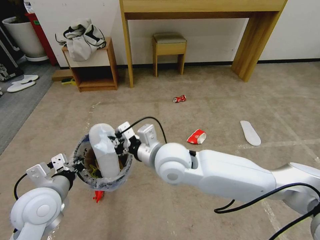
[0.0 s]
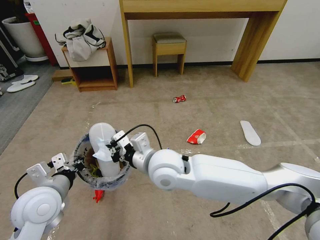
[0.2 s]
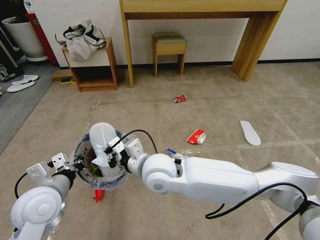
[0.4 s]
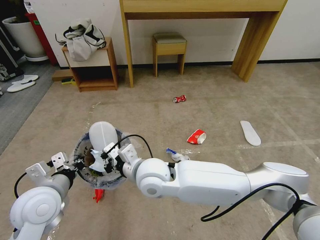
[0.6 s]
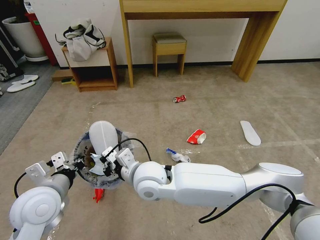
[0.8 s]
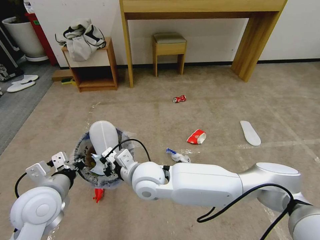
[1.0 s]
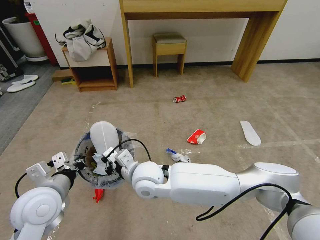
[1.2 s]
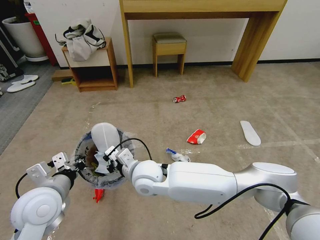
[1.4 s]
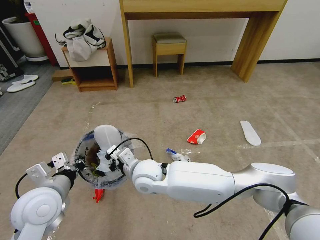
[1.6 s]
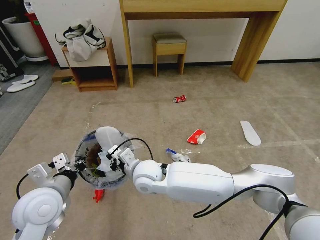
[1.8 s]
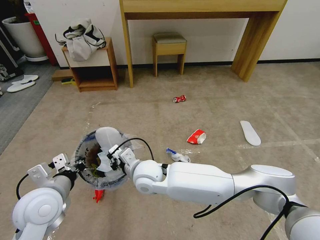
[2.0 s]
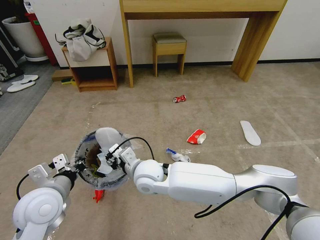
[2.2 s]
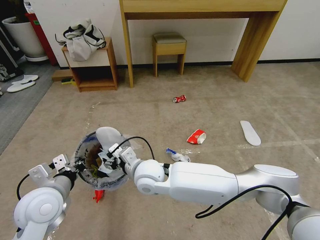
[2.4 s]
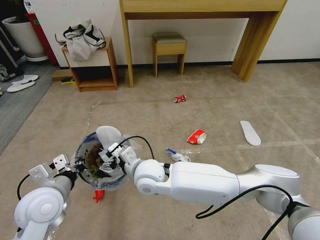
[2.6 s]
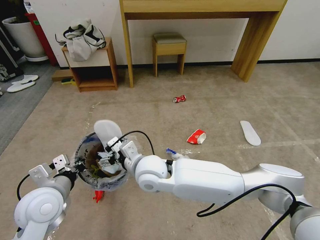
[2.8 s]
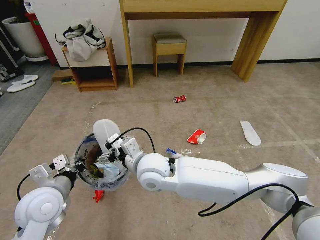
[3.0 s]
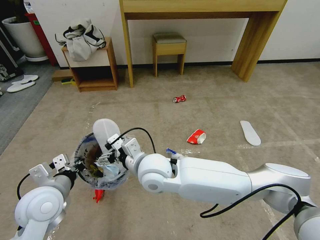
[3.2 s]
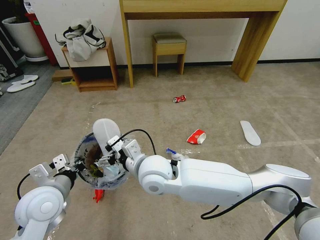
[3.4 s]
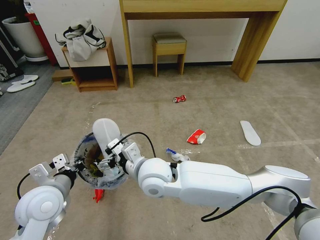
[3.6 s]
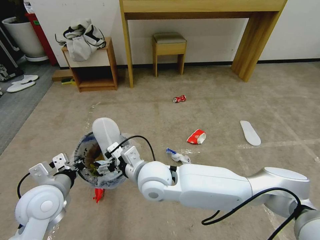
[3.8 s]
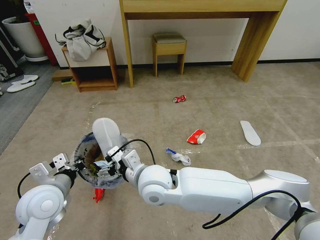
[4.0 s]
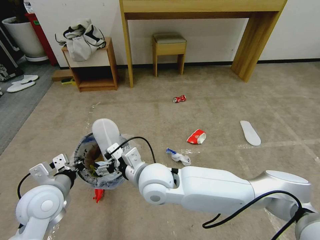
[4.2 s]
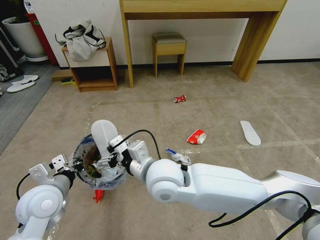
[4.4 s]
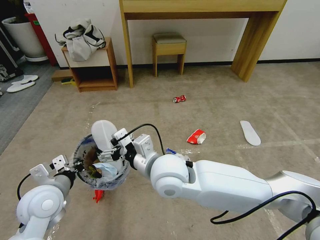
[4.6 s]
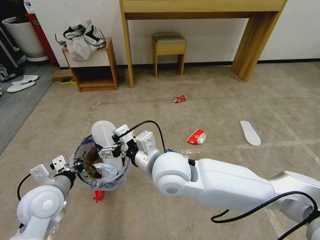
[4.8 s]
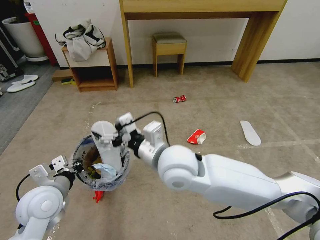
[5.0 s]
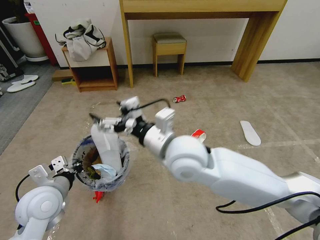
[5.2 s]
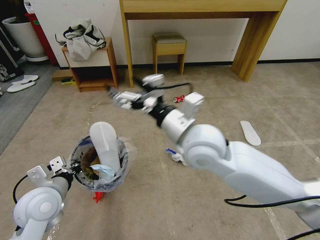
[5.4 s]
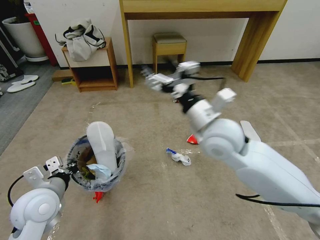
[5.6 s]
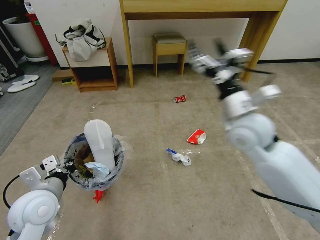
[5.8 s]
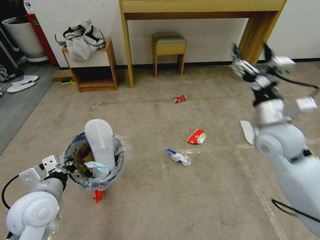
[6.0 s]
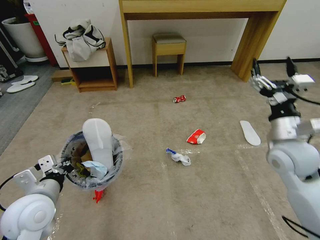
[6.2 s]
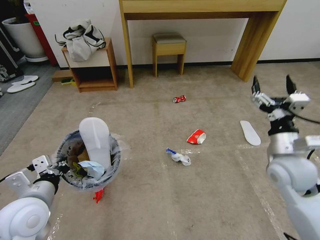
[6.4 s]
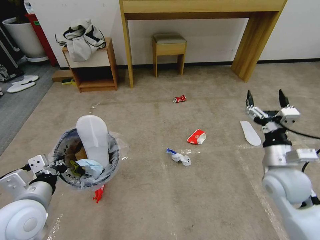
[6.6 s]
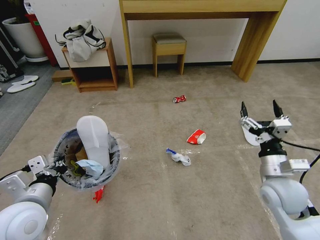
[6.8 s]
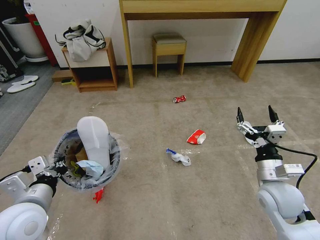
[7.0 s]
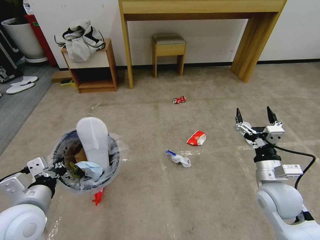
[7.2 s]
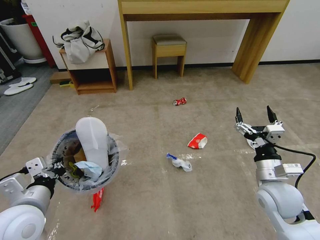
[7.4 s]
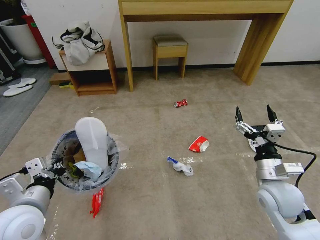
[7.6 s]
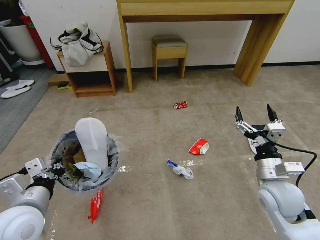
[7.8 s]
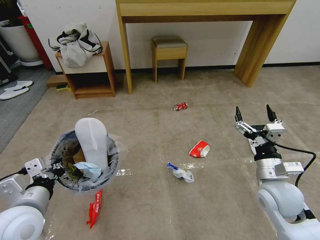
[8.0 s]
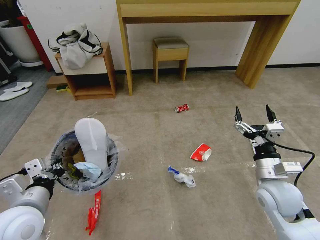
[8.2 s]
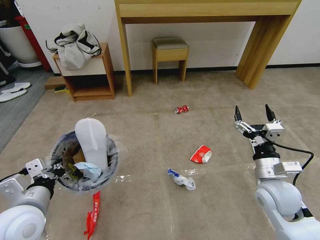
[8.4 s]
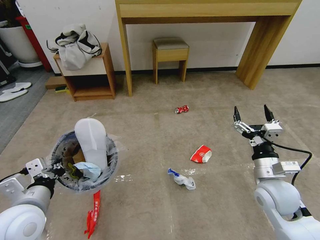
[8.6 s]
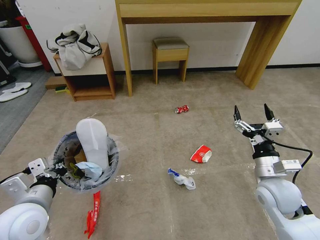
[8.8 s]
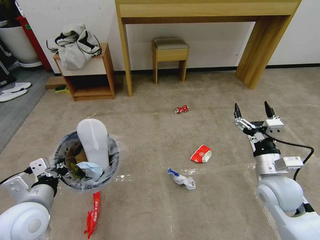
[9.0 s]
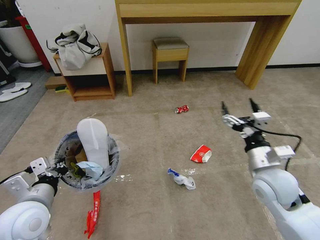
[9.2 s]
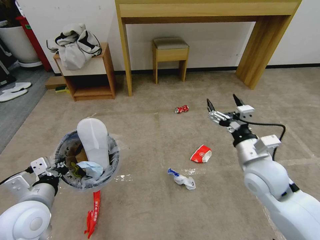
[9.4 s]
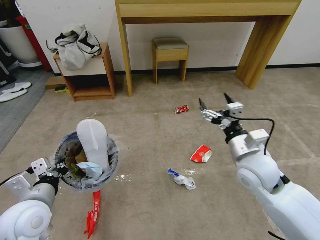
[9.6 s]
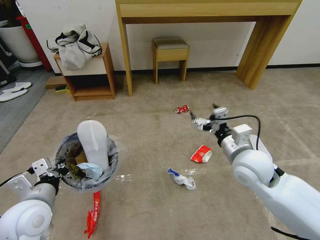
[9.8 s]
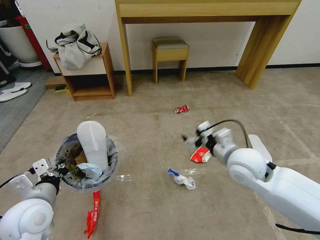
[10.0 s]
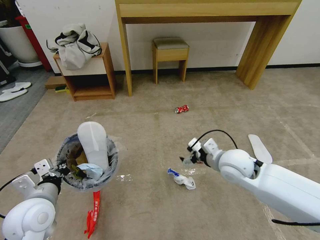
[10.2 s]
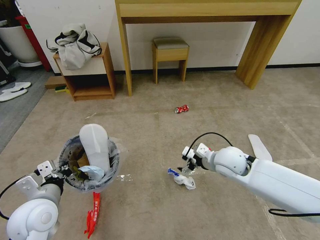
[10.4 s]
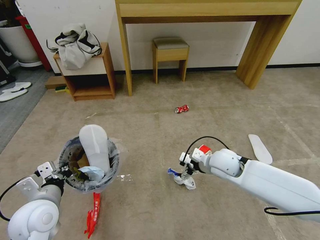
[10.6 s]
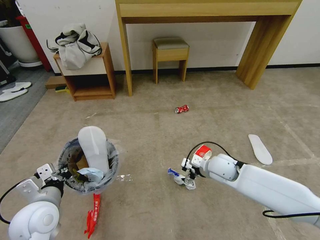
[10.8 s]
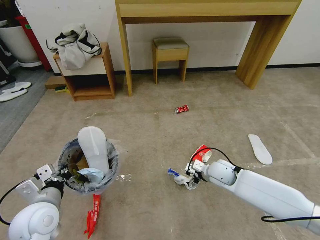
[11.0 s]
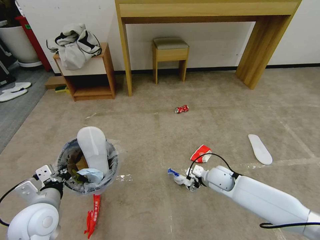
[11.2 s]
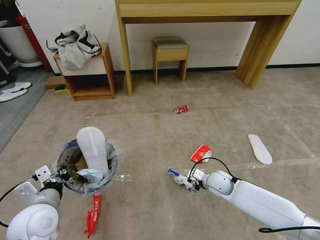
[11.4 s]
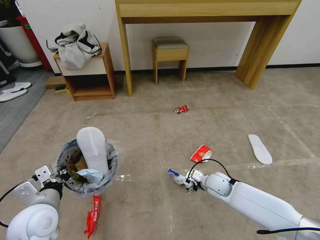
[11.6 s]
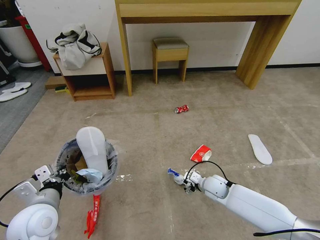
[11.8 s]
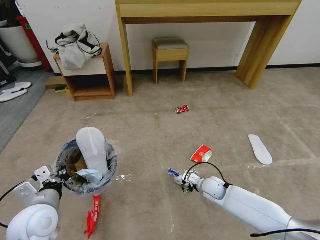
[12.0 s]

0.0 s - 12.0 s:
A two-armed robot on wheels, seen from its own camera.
Task of the whole recording: Pick up the trash bin and place the garbage on the floor into it.
0.0 s - 1.6 s: The right gripper goes some 10 cm downward and to the left.
1.6 s - 3.0 s: The right gripper shifts roughly 5 cm upward, and opens its fingers.
3.0 s - 4.4 s: The right gripper shifts by some 5 cm.
4.4 s - 6.0 s: The right gripper shifts some 30 cm to the right.
6.0 s - 7.6 s: The right gripper goes about 15 cm downward and backward.
9.0 s - 10.4 s: The right gripper shifts some 15 cm forward and to the left.
10.4 s - 12.0 s: The right gripper shifts roughly 20 cm downward.

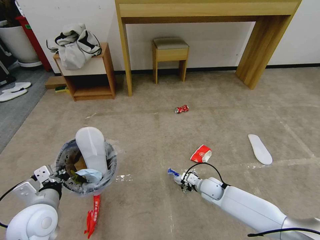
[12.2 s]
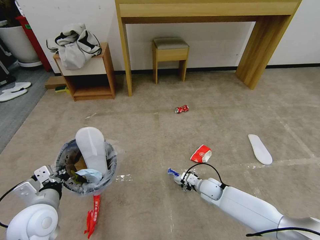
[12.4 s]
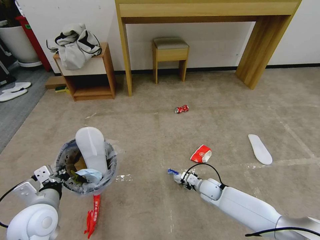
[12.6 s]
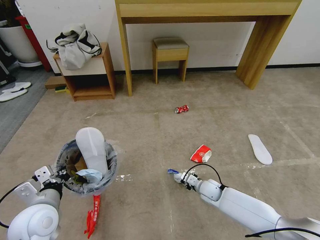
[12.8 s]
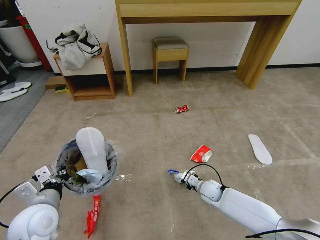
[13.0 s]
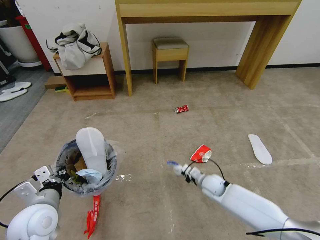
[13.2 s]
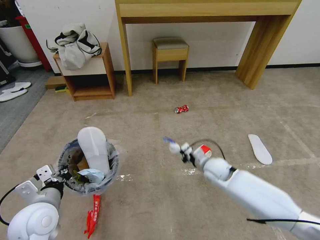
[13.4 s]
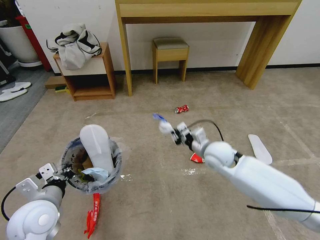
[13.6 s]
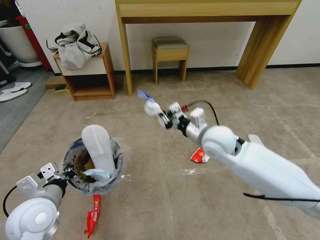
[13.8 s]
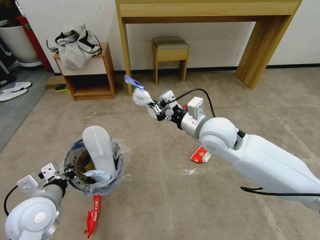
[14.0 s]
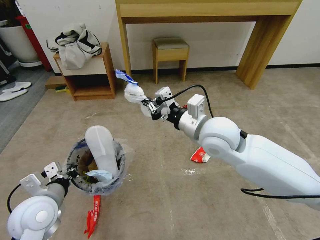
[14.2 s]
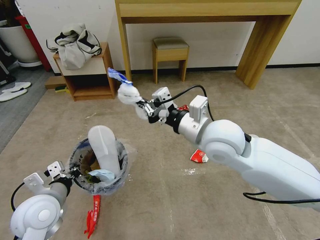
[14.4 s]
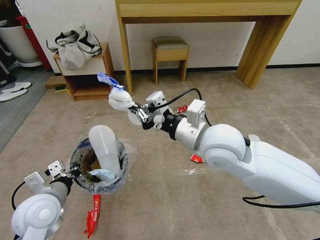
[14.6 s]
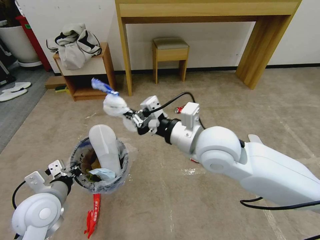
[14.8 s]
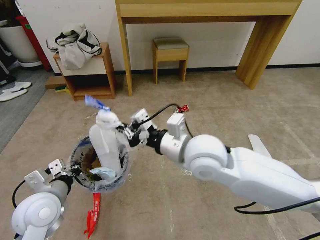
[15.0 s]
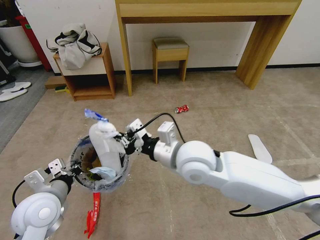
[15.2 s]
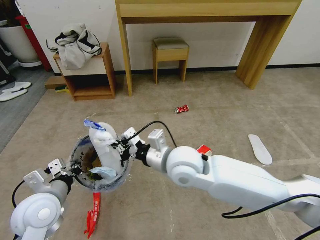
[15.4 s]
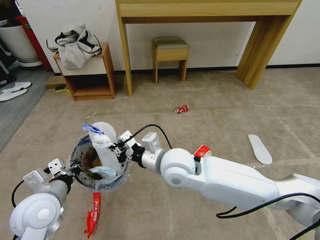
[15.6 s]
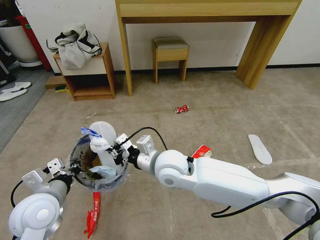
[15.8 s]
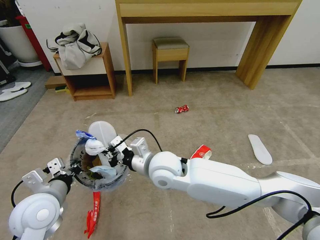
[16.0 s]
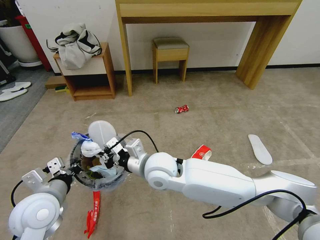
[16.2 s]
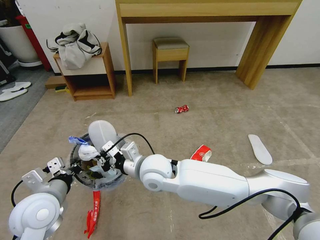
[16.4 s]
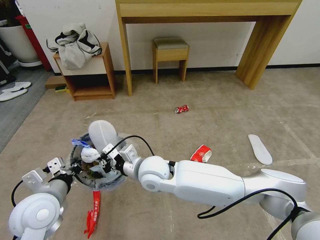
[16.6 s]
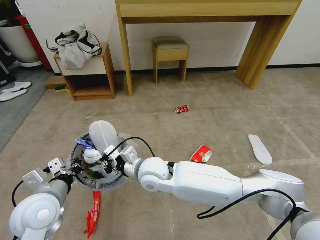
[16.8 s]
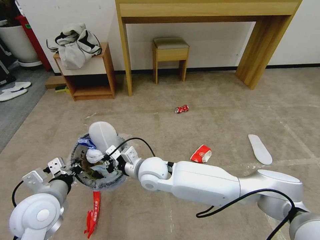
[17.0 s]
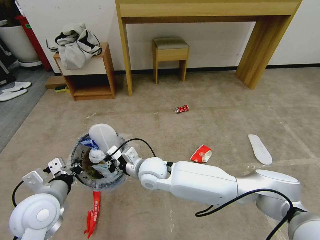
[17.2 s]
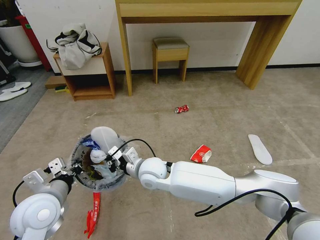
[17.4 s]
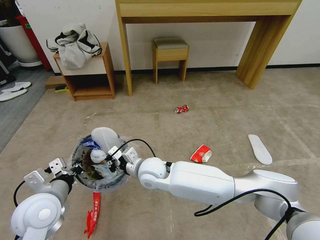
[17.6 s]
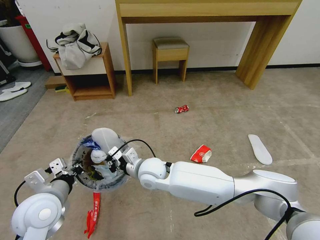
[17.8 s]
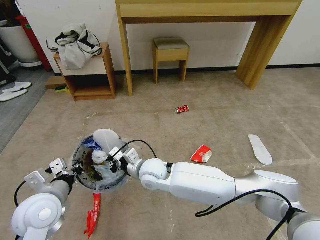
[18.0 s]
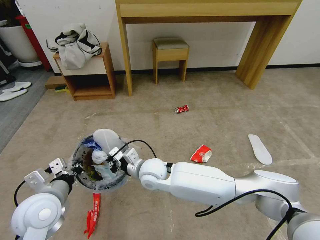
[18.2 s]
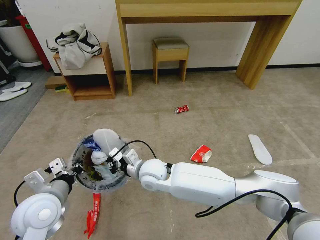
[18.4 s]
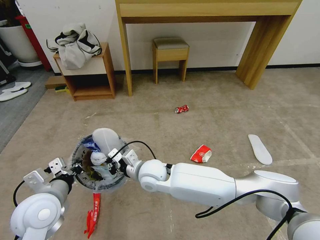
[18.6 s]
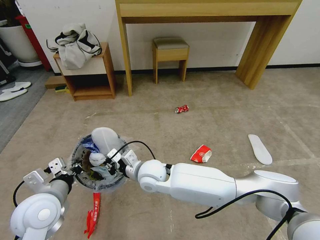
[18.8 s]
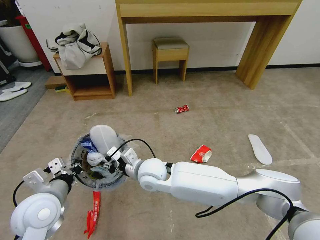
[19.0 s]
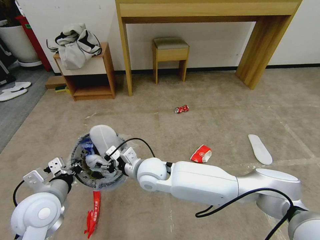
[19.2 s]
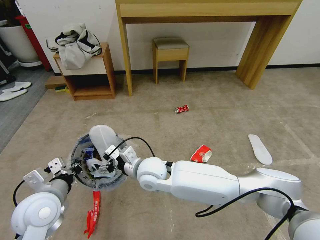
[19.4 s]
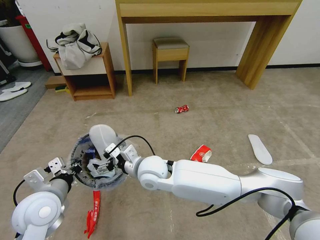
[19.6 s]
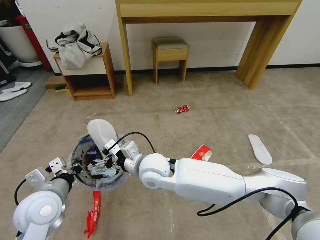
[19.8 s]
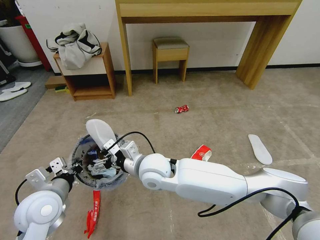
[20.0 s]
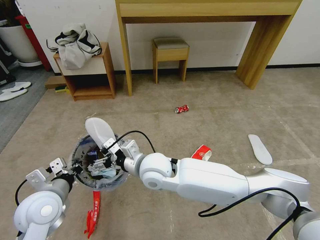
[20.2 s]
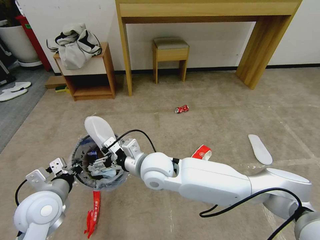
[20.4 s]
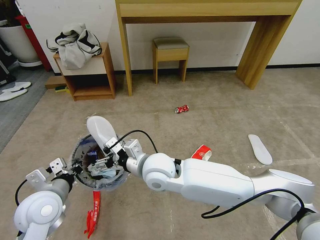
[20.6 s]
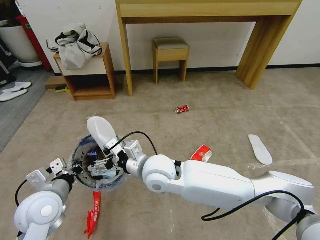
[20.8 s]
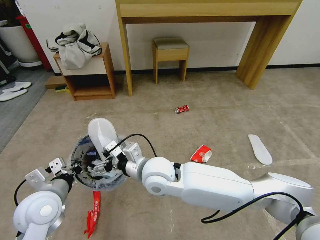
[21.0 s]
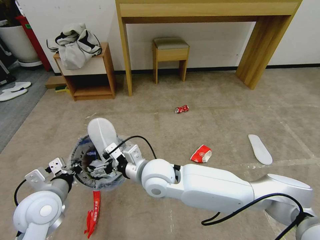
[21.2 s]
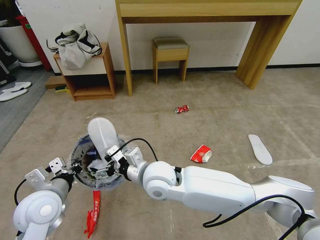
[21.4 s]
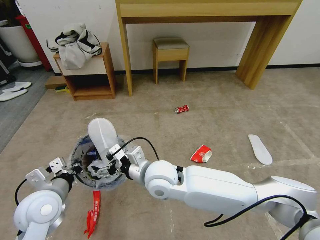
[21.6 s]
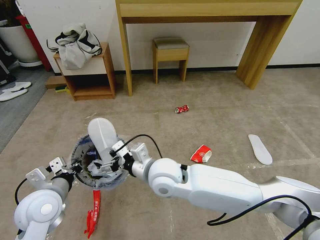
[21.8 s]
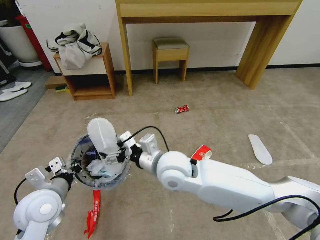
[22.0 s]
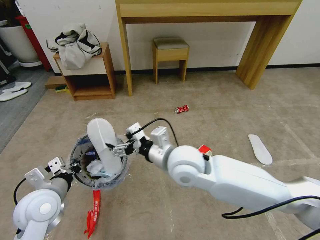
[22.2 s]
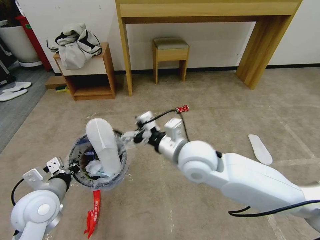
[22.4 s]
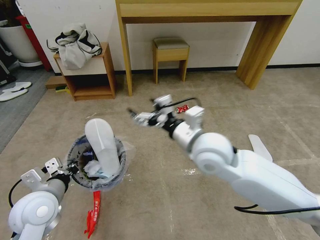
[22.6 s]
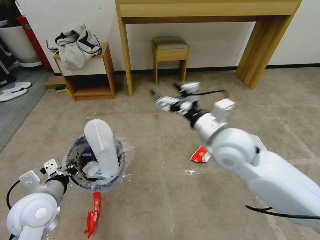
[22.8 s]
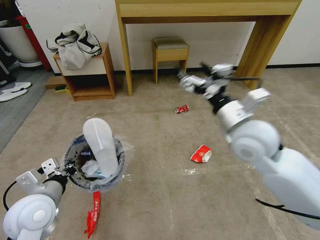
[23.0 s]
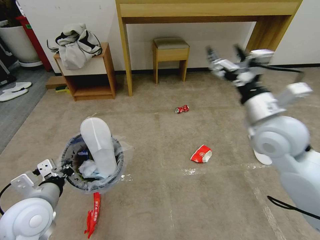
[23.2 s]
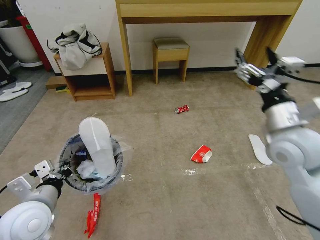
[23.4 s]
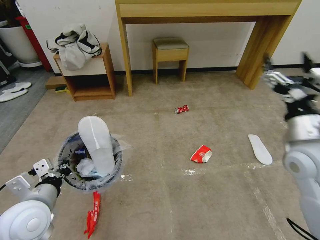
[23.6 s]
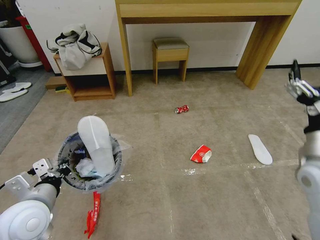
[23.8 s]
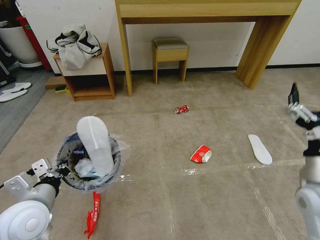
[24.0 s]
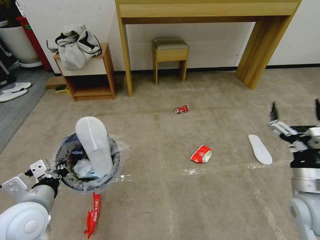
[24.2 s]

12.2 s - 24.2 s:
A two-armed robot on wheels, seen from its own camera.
Task of the whole recording: Pick up the trash bin and place the garbage on the floor into it.
12.2 s - 13.8 s: The right gripper moves upward, approximately 30 cm, and closes.
13.8 s - 15.2 s: The right gripper heads to the left and backward, covering about 15 cm.
15.2 s - 16.6 s: The right gripper goes roughly 15 cm to the left and downward.
16.6 s - 18.2 s: The right gripper goes about 5 cm downward.
18.2 s - 19.8 s: The right gripper goes some 5 cm upward, and opens.
19.8 s - 21.2 s: The grippers stay close to where they were, moving slightly.
21.2 s - 22.6 s: The right gripper is displaced to the right and upward by approximately 15 cm.
22.6 s - 24.2 s: The right gripper moves to the right and backward, approximately 25 cm.
